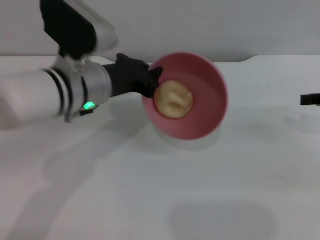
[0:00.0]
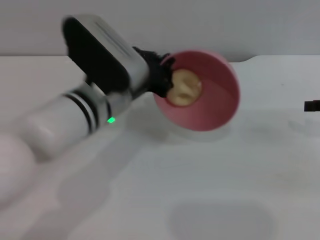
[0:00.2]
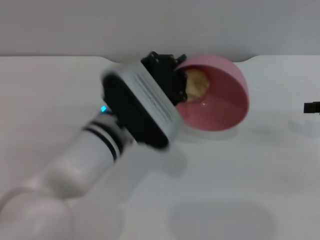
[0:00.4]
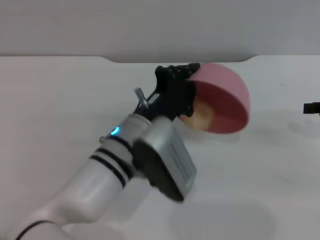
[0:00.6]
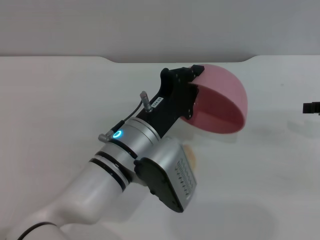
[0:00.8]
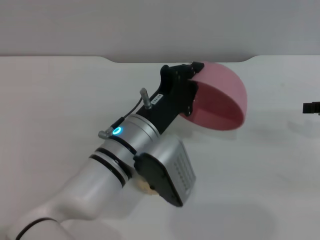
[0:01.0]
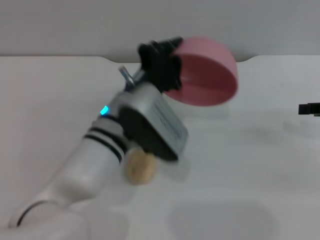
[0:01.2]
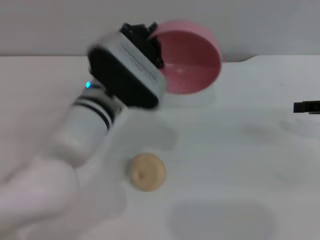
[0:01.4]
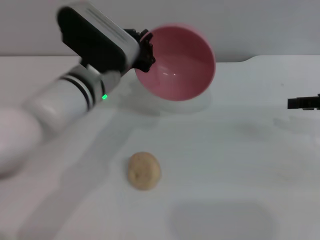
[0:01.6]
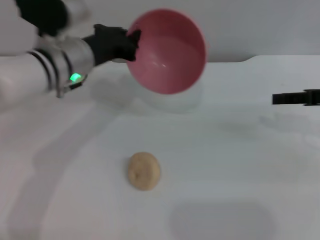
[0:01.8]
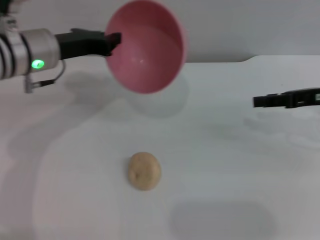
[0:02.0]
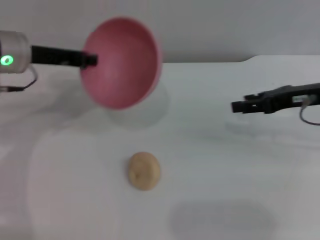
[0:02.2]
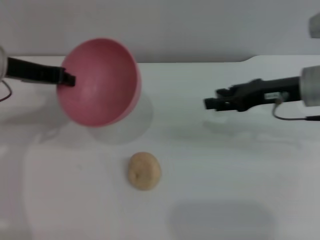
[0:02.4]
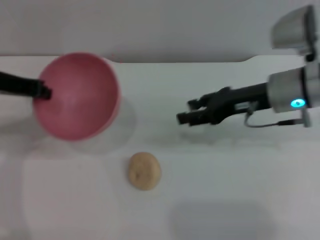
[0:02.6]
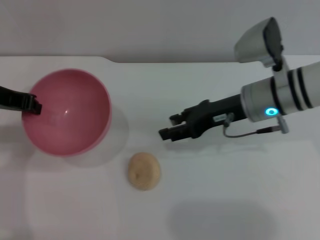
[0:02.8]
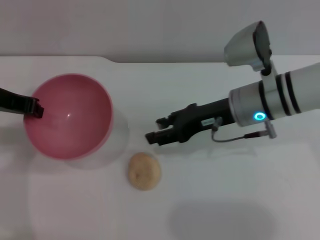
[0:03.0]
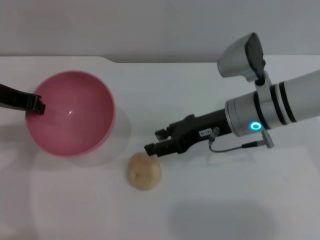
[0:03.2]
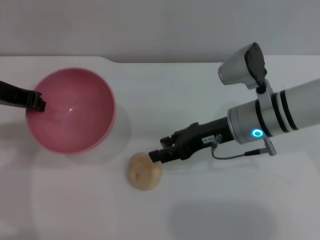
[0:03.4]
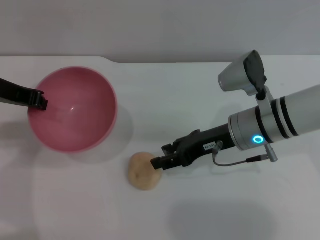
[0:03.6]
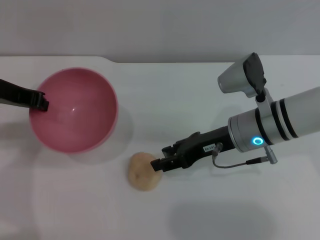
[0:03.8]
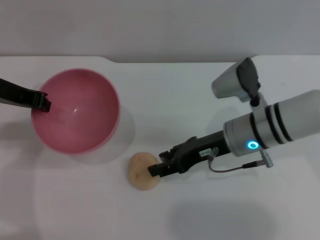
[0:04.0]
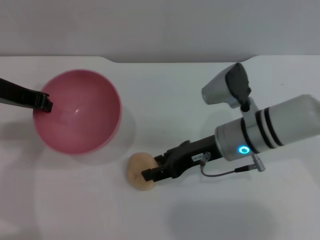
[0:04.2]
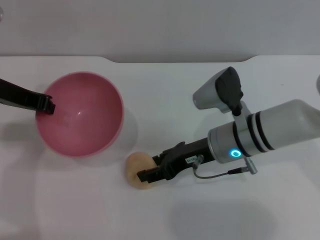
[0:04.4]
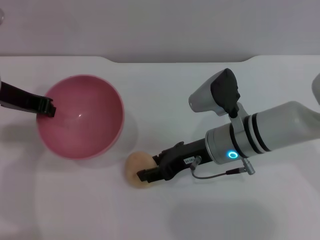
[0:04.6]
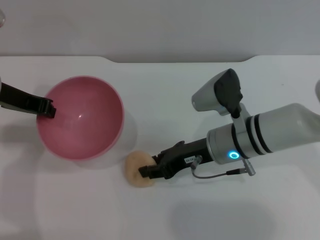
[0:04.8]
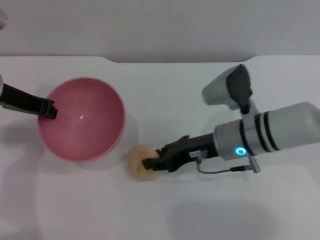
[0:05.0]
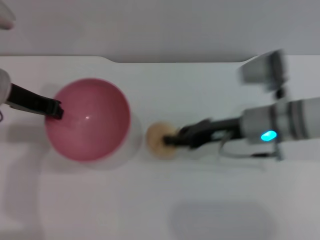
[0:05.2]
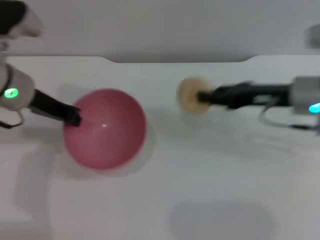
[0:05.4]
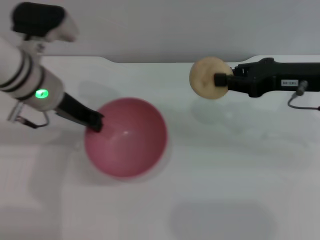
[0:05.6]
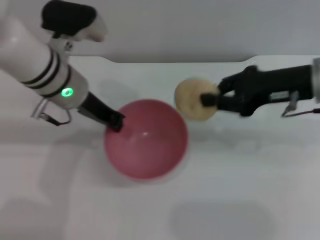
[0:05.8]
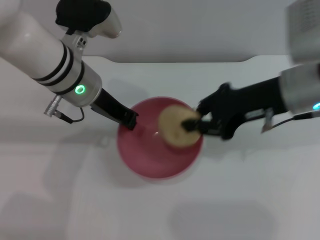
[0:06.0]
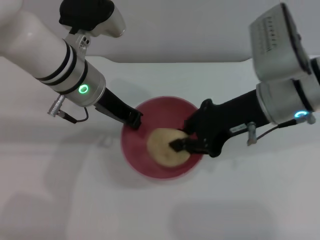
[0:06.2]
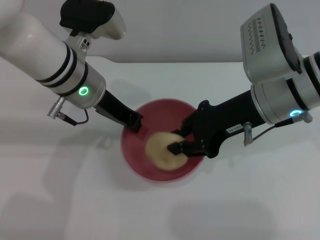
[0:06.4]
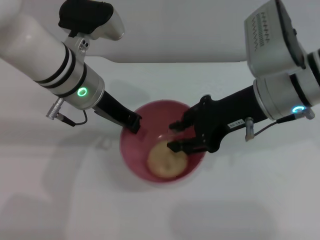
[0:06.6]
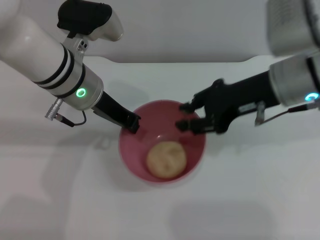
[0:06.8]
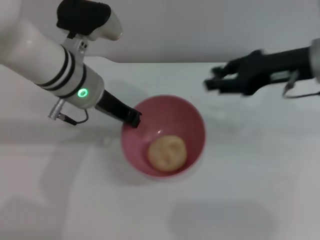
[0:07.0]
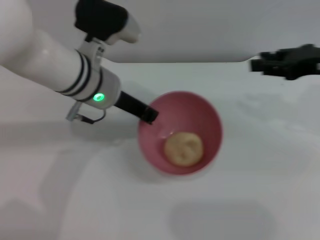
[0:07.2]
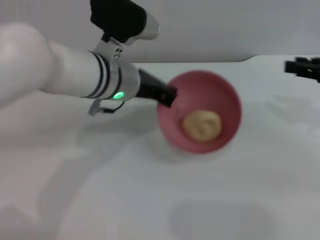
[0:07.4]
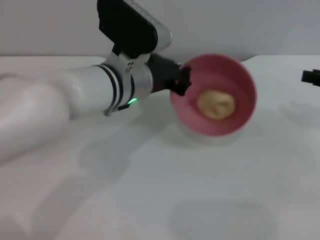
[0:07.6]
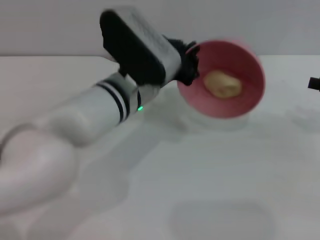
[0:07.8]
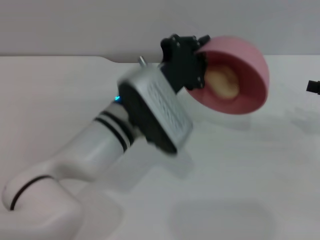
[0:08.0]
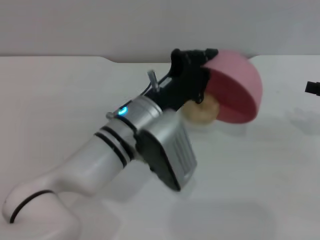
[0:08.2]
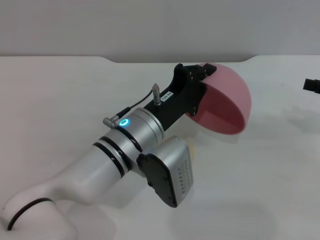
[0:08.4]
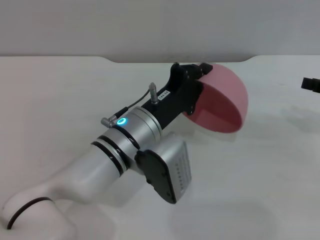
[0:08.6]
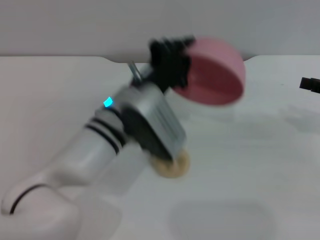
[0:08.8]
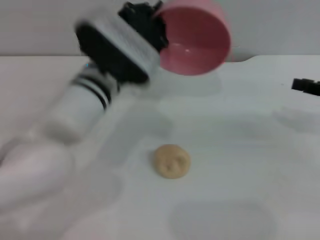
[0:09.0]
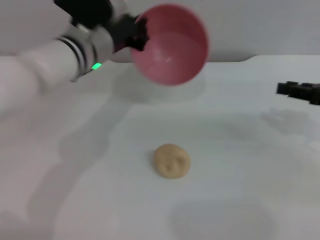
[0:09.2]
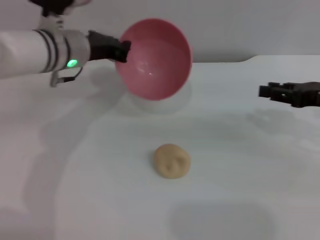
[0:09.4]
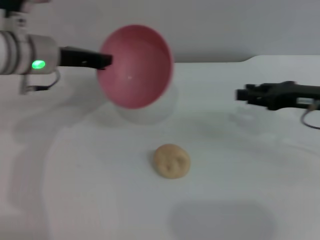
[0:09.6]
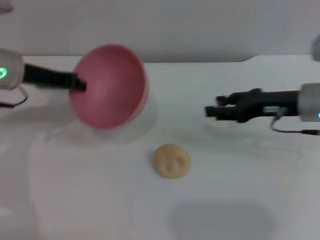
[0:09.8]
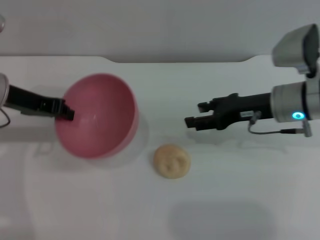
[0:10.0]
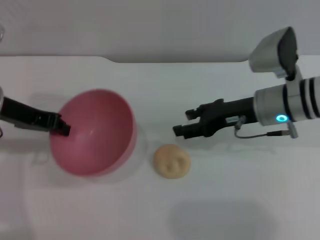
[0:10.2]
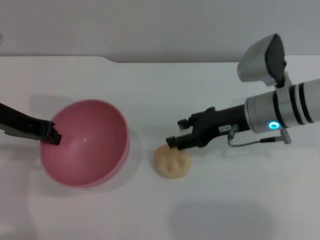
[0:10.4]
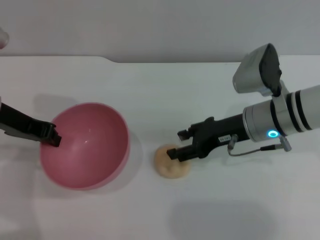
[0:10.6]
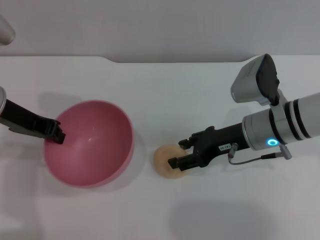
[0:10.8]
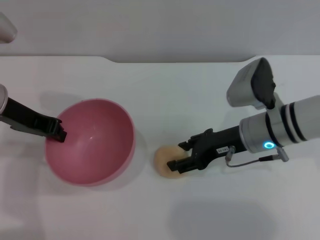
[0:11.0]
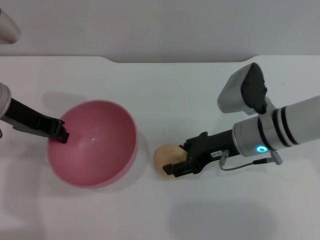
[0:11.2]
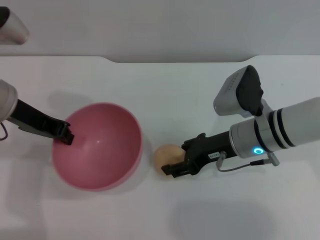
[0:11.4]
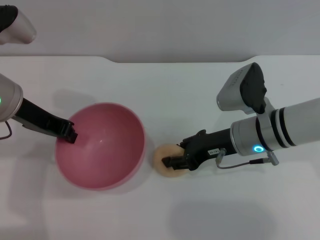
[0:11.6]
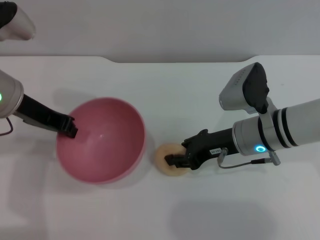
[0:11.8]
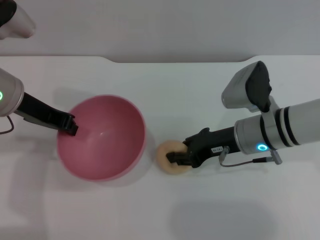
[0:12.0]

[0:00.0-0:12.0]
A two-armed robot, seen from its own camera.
Task of the whole recording: put the egg yolk pastry into the pink bowl and pour it out repeatedly.
Step, 0:00.0 to 0:00.8: Pour the egg yolk pastry out of bowl.
Step, 0:01.2 to 0:05.0: Pick up the egg yolk pastry with the right gripper.
Step, 0:05.4 to 0:06.6: Place the egg yolk pastry into the bowl.
Step, 0:07.0 to 0:08.2: Pour the egg yolk pastry out of bowl.
0:00.0 to 0:01.6: The left gripper reaches roughly 5 cm backward, then returns.
0:01.6 to 0:03.0: The right gripper goes roughly 20 cm to the left, while the left gripper moves to the left and upward, about 20 cm.
0:03.0 to 0:04.4: The right gripper shifts by some 5 cm.
0:04.4 to 0:06.0: The right gripper travels upward and to the right by some 15 cm, and closes; the left gripper goes approximately 10 cm to the right.
0:06.0 to 0:07.6: The left gripper travels to the right by roughly 5 cm. The right gripper shifts approximately 15 cm to the right.
0:09.0 to 0:10.4: Both grippers travel together to the left, approximately 20 cm.
0:10.4 to 0:12.0: The right gripper closes up.

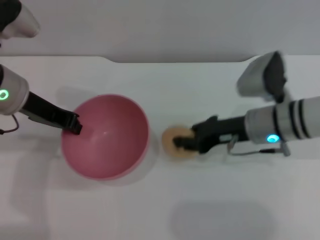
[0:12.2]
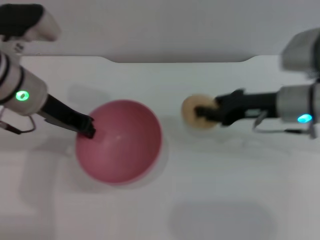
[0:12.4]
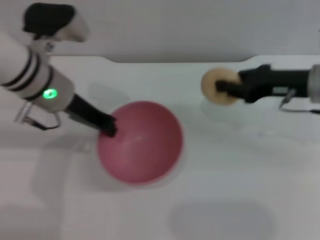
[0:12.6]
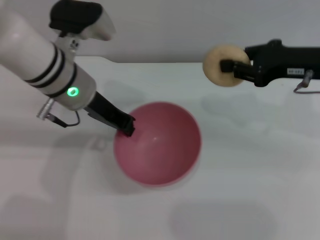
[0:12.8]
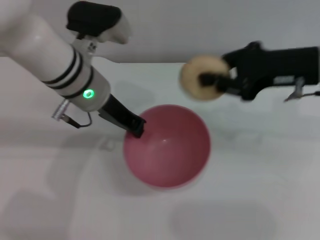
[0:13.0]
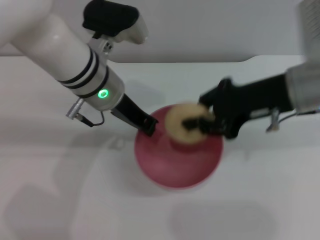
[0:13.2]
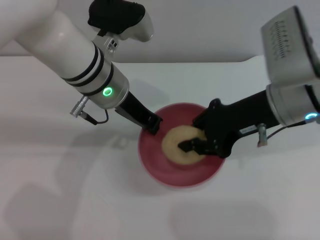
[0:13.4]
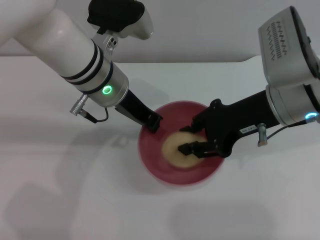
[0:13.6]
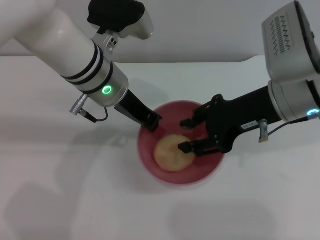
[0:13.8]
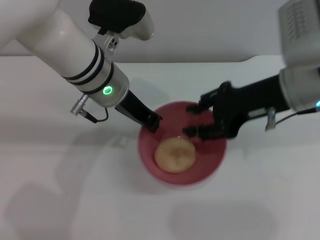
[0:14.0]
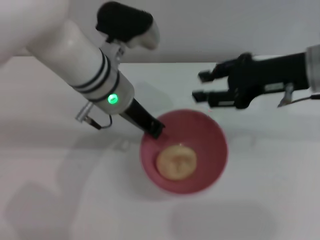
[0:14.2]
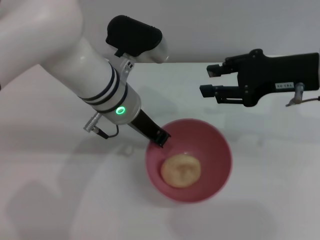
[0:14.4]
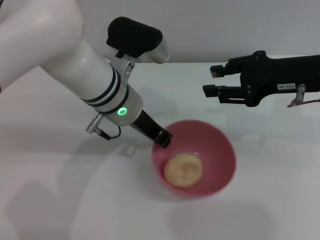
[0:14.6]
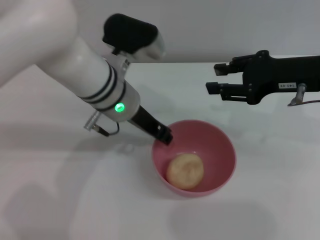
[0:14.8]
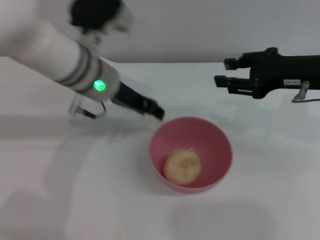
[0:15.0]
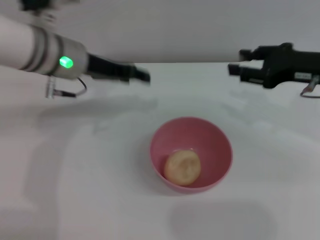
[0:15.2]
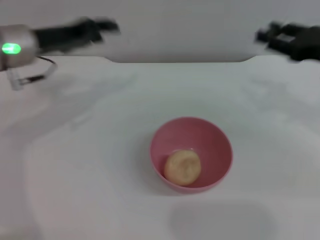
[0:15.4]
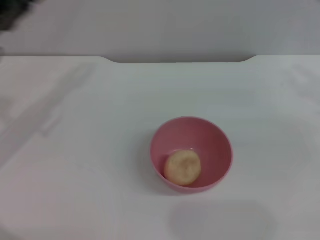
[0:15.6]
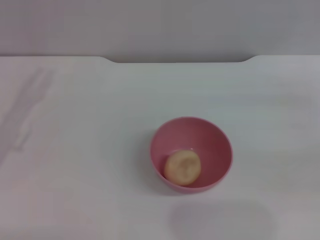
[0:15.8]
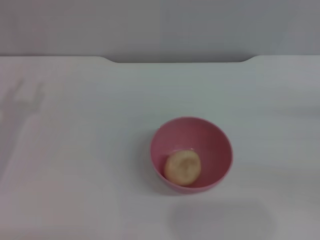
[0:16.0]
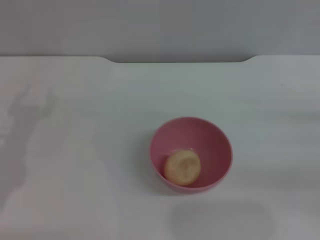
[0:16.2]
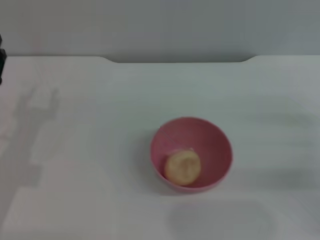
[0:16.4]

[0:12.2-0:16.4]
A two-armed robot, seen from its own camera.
Task of the whole recording: put the egg yolk pastry into the pink bowl and pour it out repeatedly.
Step, 0:12.6 to 0:13.8: Place the egg yolk pastry into the bowl.
Step, 0:14.0 to 0:15.2: Place the bowl on the table.
0:12.2 to 0:13.6: The left gripper goes approximately 15 cm to the right. The right gripper is displaced upward by some 10 cm.
0:13.6 to 0:15.0: The left gripper opens its fingers. The right gripper heads to the right, covering approximately 10 cm, and opens up.
0:15.0 to 0:16.4: The left gripper is displaced to the left, backward and downward by some 25 cm, and opens up. The right gripper heads downward, to the right and backward, covering about 15 cm.
